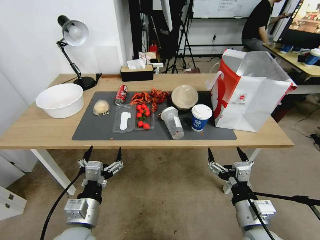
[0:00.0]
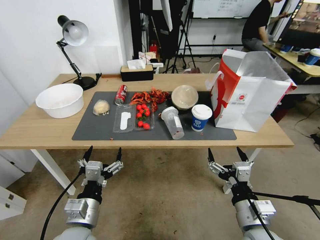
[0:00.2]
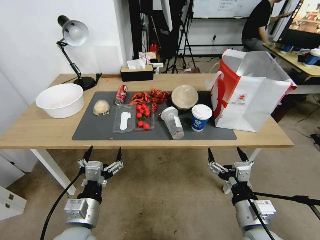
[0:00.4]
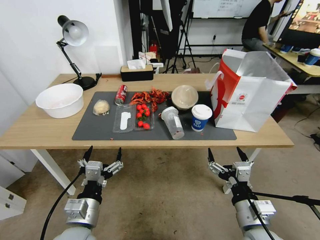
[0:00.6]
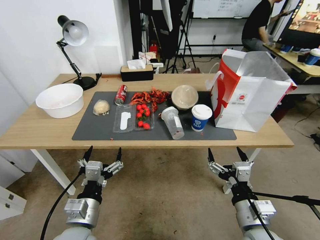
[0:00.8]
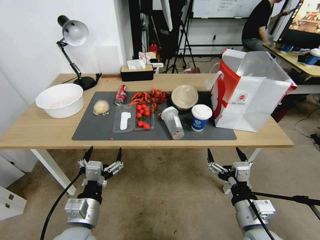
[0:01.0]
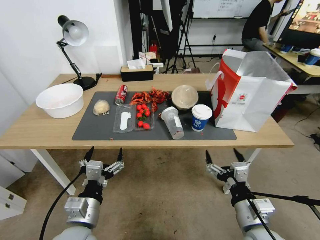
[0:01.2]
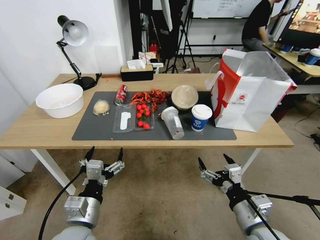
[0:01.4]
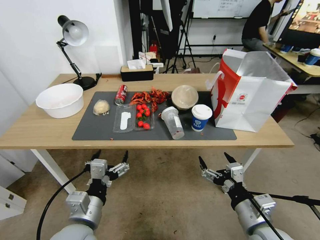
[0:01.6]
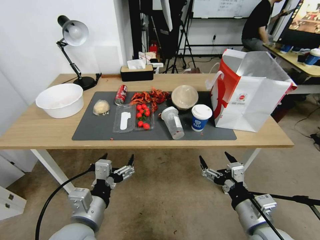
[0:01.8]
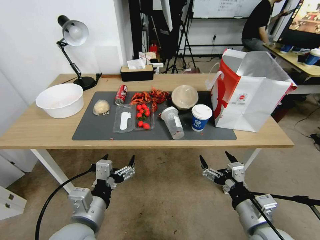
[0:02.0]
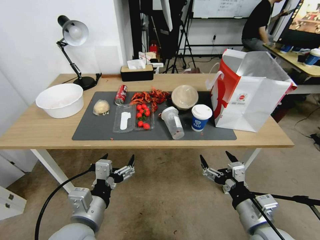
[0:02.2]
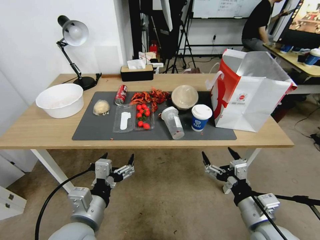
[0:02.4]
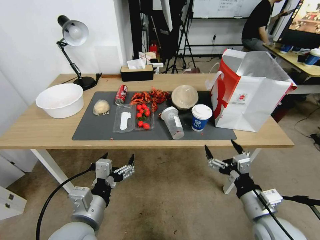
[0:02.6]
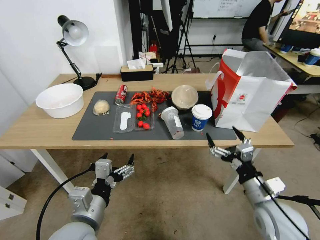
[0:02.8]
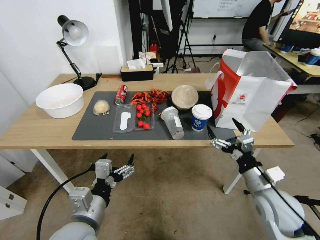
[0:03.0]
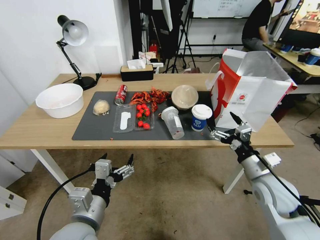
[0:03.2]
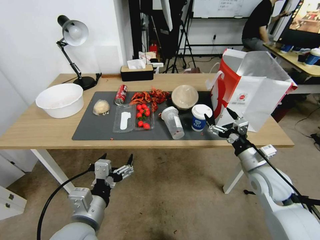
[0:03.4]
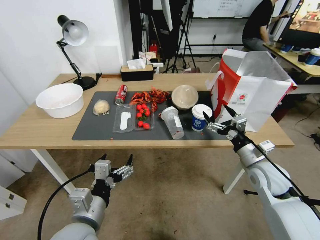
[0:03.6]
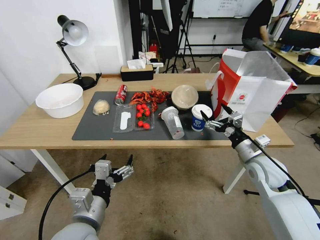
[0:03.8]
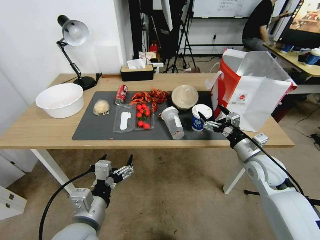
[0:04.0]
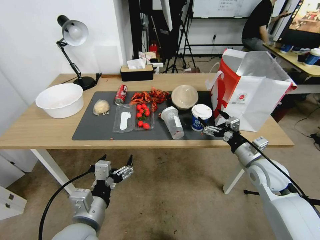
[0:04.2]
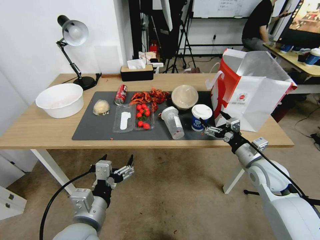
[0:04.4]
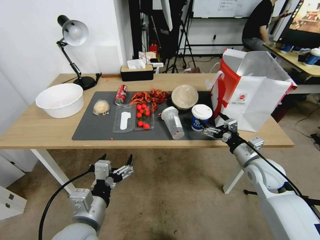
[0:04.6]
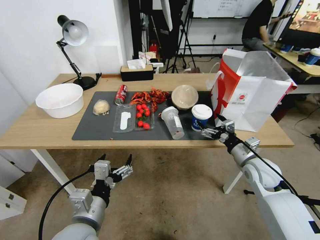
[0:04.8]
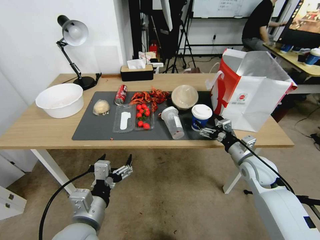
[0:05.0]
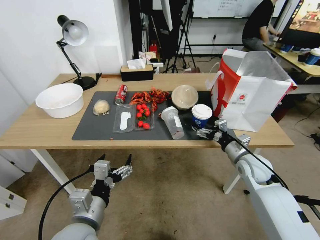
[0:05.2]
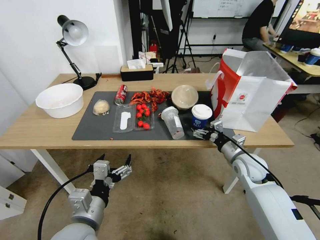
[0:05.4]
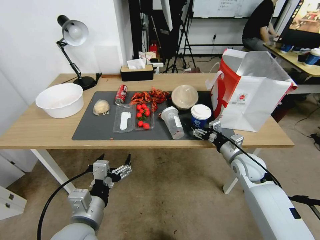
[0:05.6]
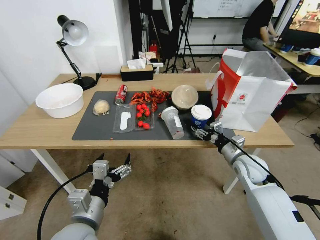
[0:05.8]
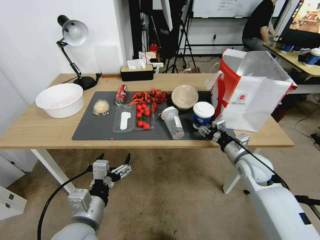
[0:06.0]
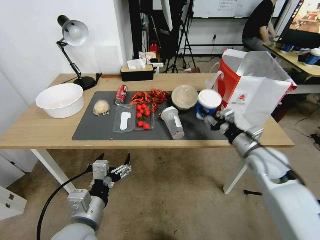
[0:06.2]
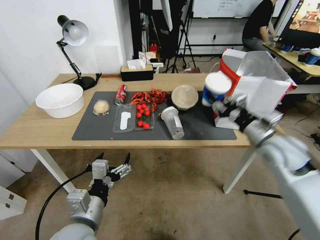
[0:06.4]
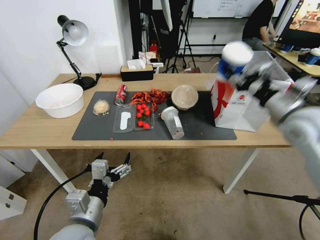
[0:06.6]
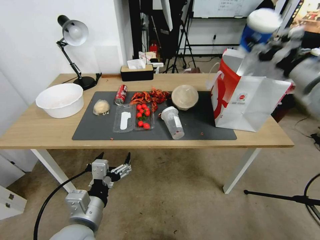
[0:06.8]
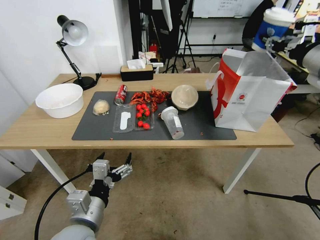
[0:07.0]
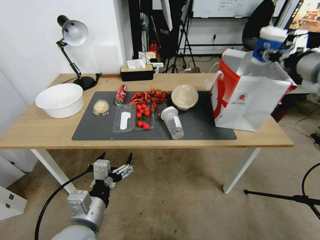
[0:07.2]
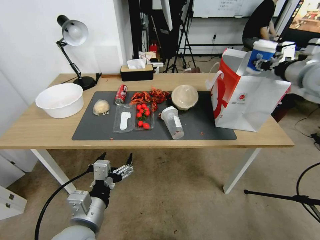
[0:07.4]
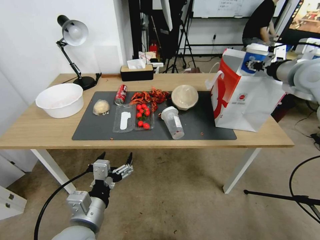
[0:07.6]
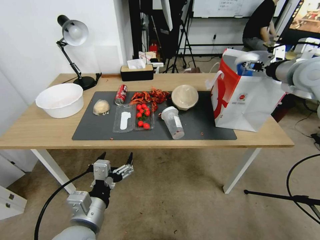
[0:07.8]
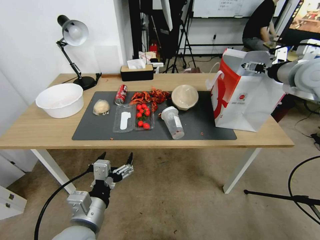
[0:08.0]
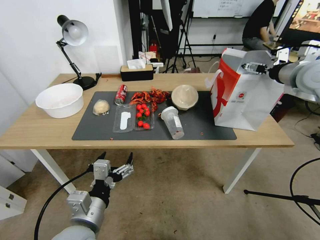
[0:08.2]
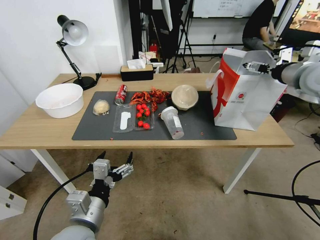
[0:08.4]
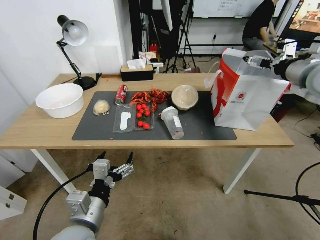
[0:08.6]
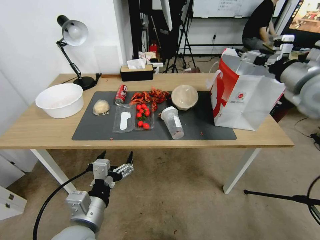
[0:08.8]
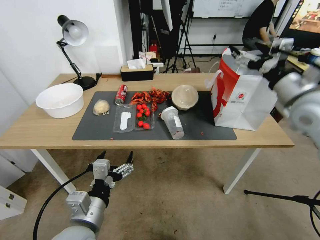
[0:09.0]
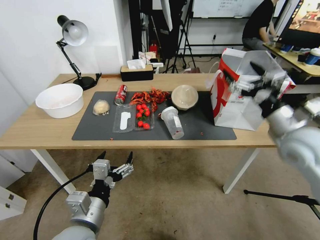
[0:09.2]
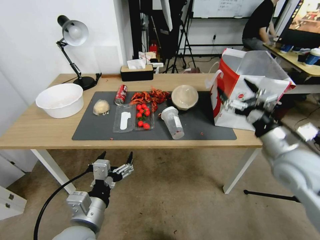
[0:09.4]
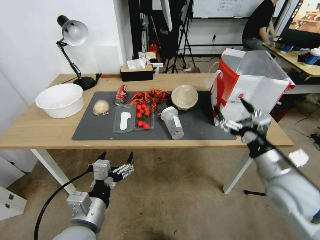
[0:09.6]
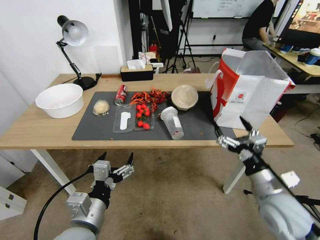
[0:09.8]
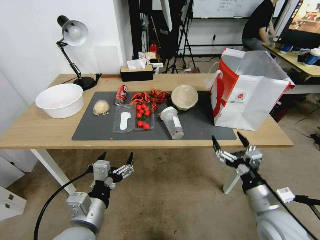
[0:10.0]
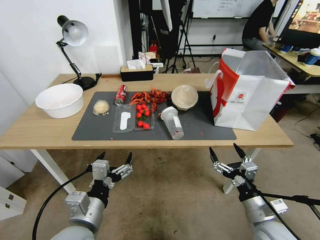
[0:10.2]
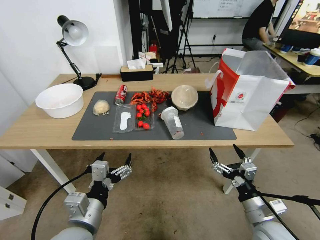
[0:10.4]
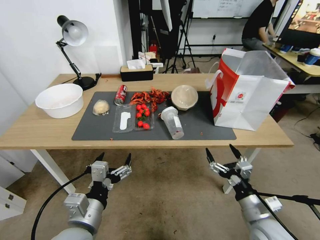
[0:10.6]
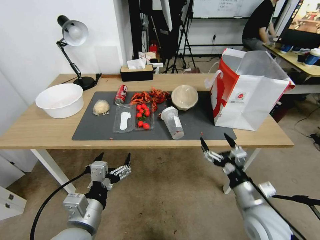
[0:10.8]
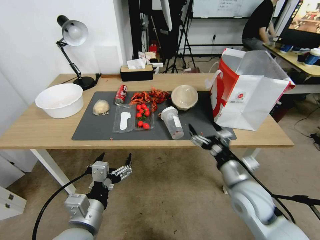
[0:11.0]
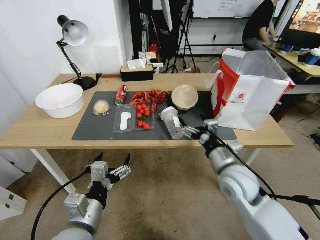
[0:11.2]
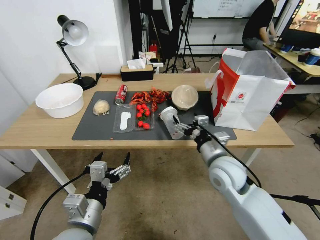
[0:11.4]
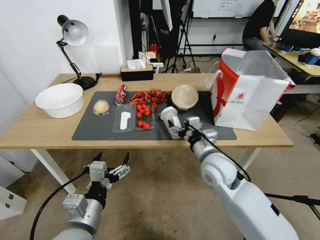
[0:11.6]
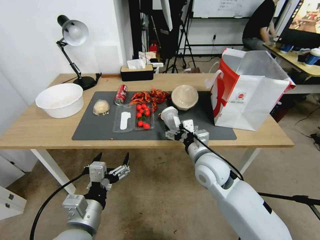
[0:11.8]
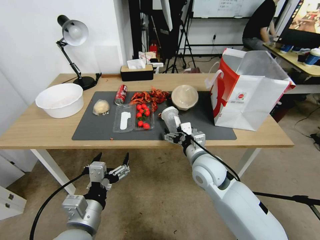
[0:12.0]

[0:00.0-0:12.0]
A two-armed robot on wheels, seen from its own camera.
0:01.6 to 0:03.0: The right gripper heads forward and to the right, covering approximately 10 cm.
0:03.0 to 0:04.4: The right gripper shifts approximately 10 cm forward.
0:04.4 to 0:06.0: The right gripper closes.
0:06.0 to 0:07.6: The right gripper heads upward, covering about 30 cm.
0:07.6 to 0:09.0: The right gripper travels backward by some 5 cm, and opens up.
0:09.0 to 0:10.4: The right gripper is displaced downward and backward by about 35 cm.
0:10.4 to 0:12.0: The right gripper heads forward, to the left and upward, covering roughly 25 cm.

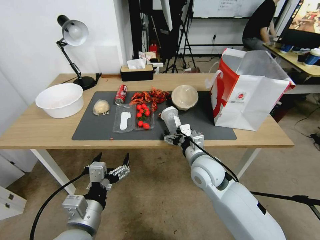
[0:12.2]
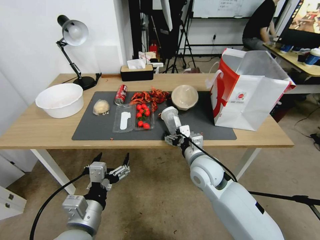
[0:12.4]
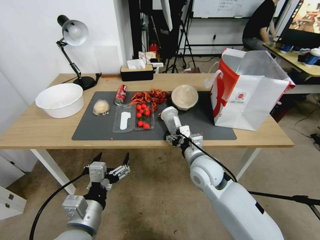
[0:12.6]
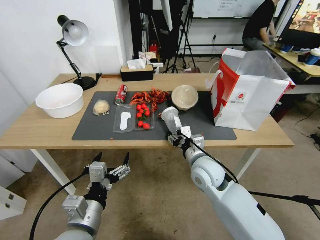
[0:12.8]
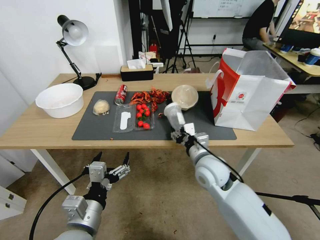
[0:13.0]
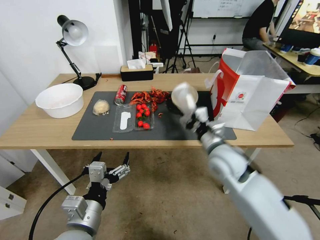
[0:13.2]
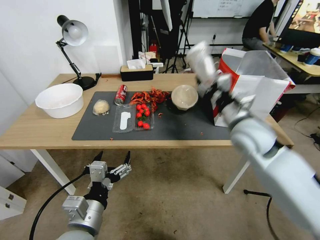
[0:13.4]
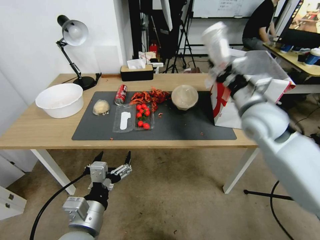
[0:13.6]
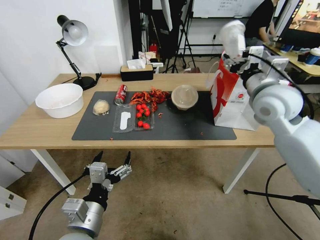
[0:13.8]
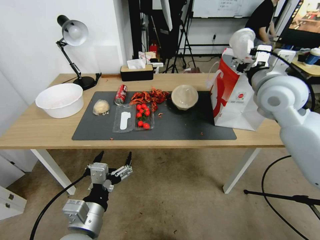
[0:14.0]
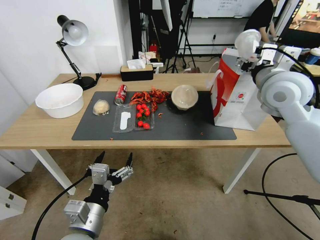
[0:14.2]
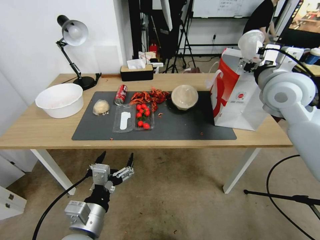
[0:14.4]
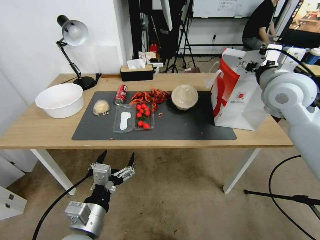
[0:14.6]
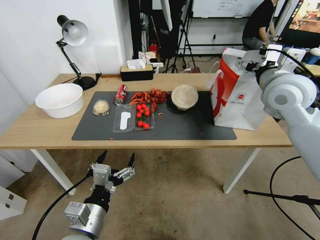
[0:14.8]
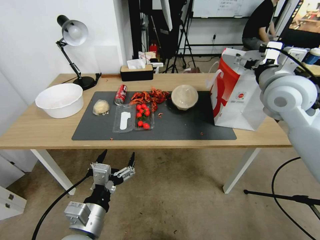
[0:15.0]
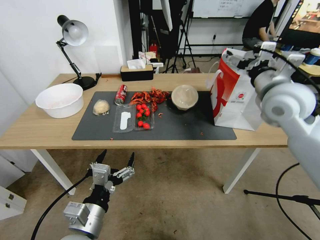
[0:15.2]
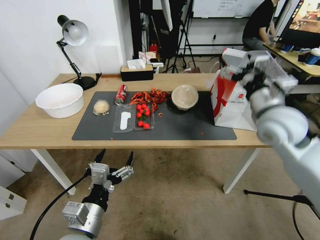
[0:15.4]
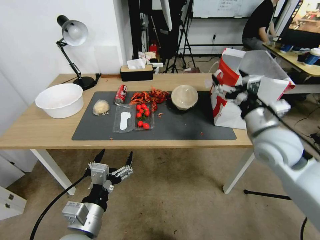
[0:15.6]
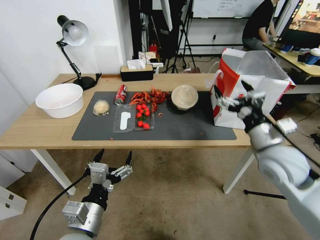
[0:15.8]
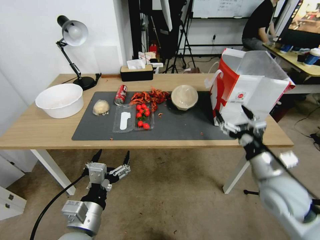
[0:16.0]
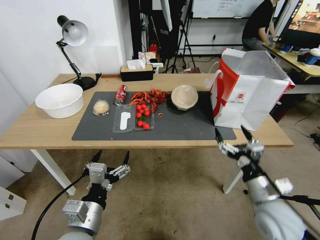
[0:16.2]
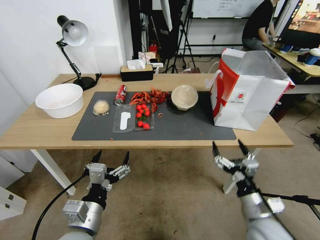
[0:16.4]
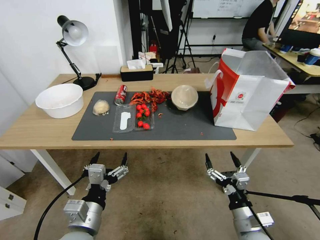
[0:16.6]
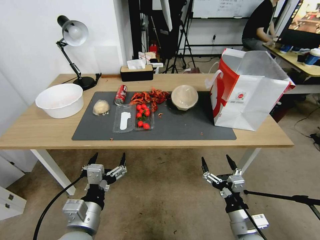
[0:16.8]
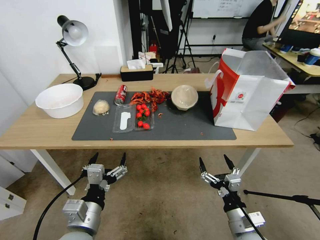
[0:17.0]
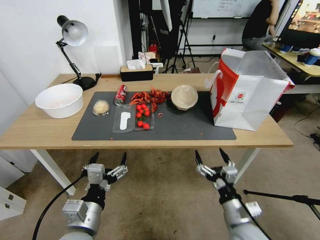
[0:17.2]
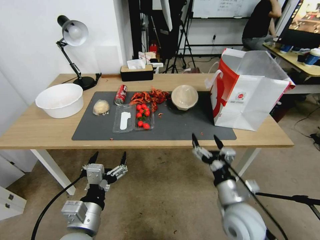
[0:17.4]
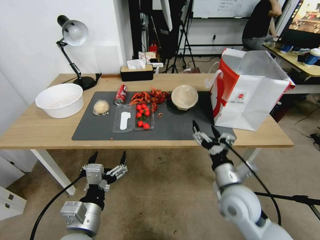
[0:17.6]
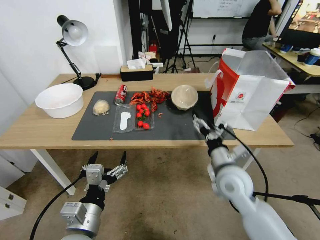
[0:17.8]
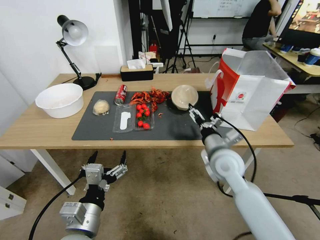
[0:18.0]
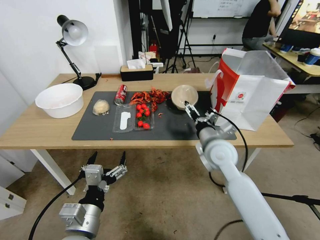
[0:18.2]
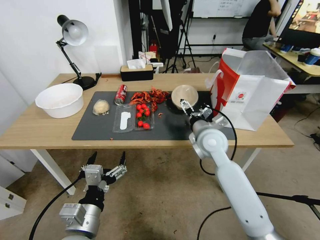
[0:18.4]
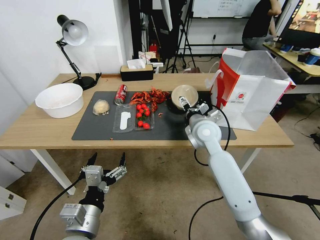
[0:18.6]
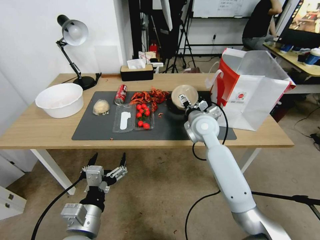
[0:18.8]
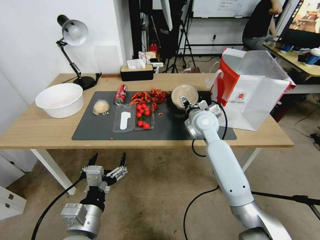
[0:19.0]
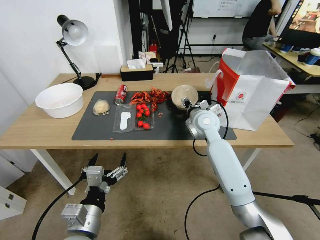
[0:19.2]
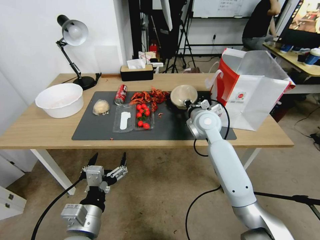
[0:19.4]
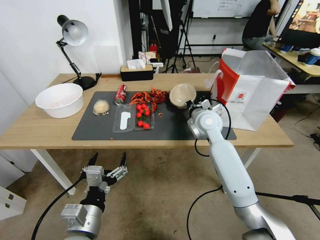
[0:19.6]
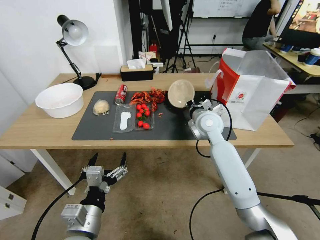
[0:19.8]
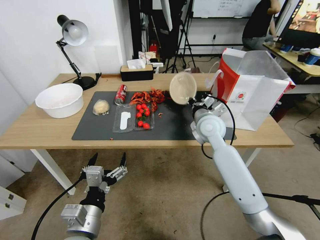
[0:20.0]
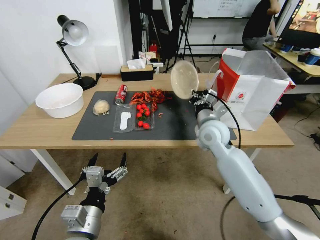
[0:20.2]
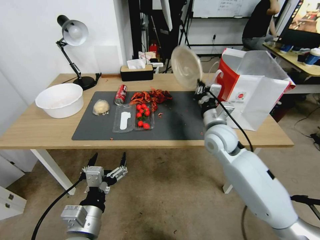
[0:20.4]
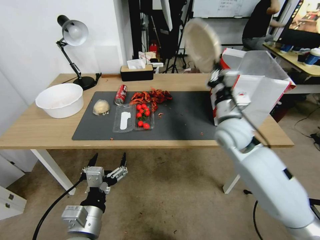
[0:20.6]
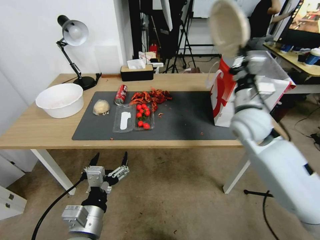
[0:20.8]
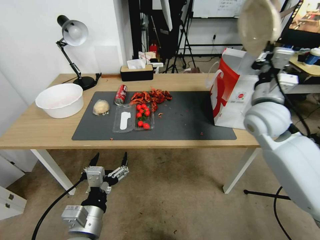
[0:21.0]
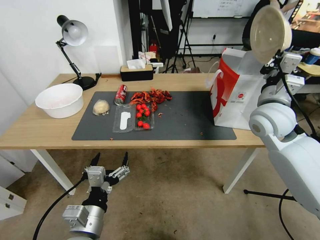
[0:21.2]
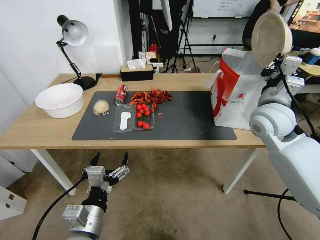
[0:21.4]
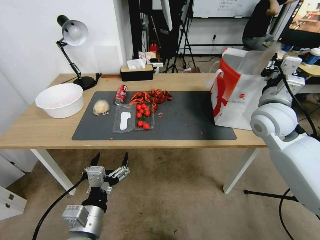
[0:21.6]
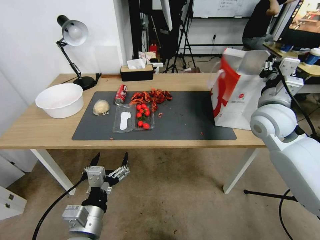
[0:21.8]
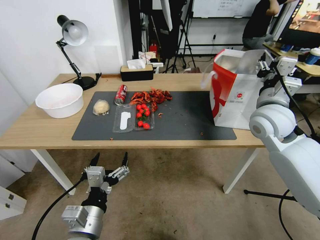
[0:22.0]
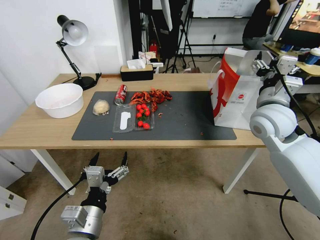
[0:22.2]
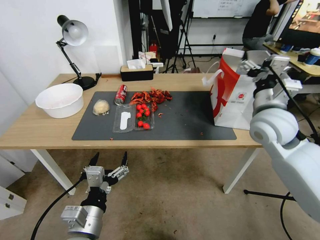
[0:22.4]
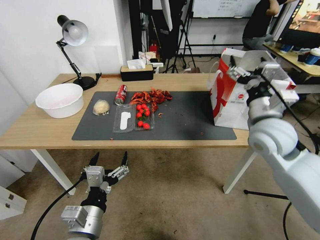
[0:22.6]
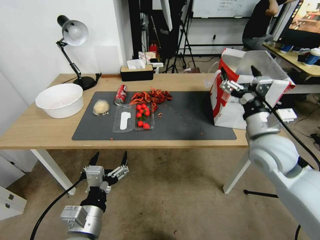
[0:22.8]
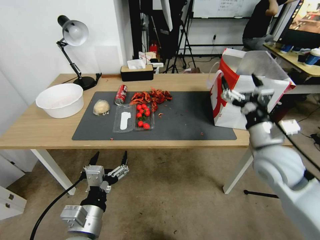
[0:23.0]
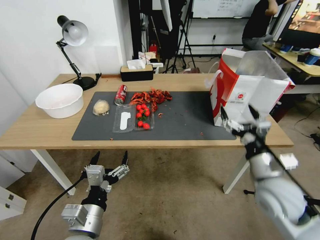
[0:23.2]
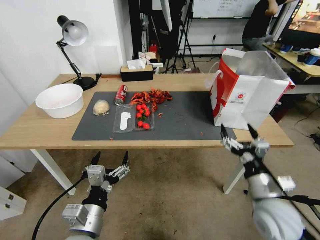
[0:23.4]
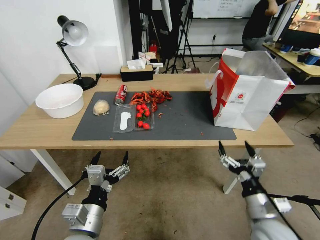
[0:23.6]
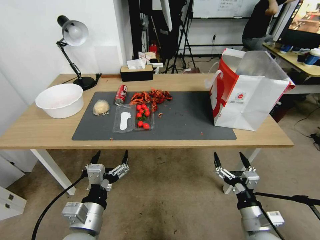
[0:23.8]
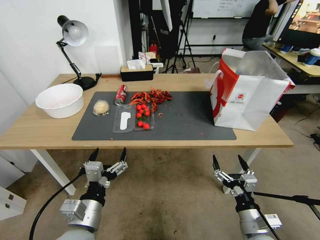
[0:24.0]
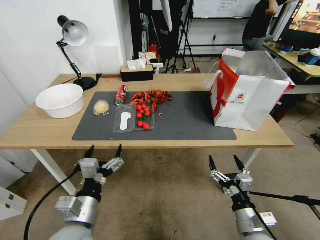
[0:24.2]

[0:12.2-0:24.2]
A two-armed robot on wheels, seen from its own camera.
0:12.2 to 0:13.8: The right gripper moves upward, to the right and forward, some 25 cm, and closes.
0:13.8 to 0:15.2: The right gripper opens up.
0:15.2 to 0:16.6: The right gripper heads downward and backward, covering approximately 40 cm.
0:16.6 to 0:18.2: The right gripper shifts about 25 cm forward and upward.
0:18.2 to 0:19.8: The right gripper shifts roughly 10 cm forward, and closes.
0:19.8 to 0:21.2: The right gripper shifts roughly 15 cm to the right, upward and backward.
0:21.2 to 0:22.6: The right gripper moves about 5 cm, and opens up.
0:22.6 to 0:24.2: The right gripper goes roughly 30 cm downward and backward.
